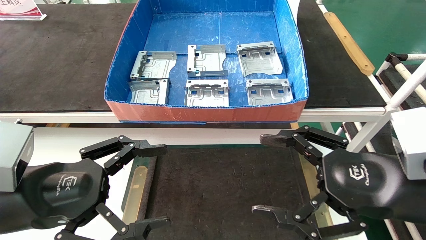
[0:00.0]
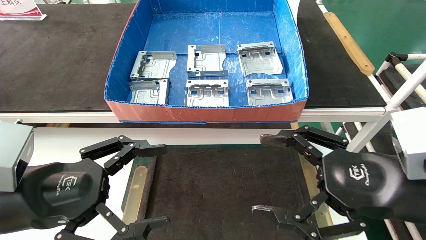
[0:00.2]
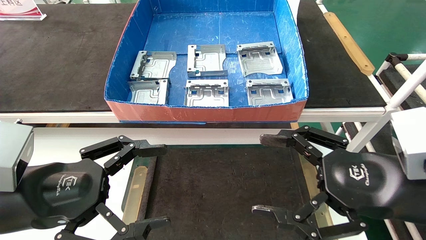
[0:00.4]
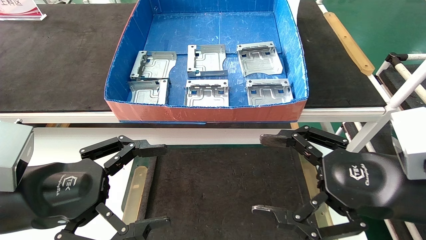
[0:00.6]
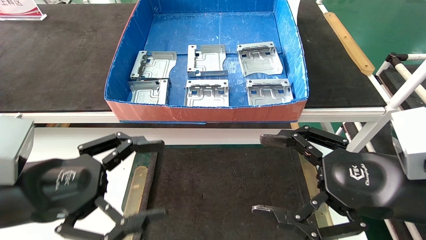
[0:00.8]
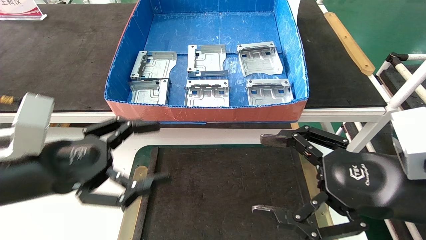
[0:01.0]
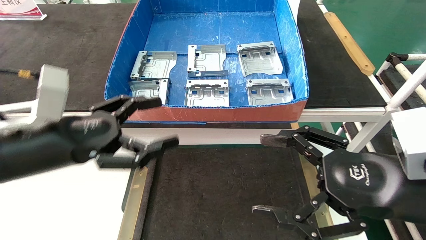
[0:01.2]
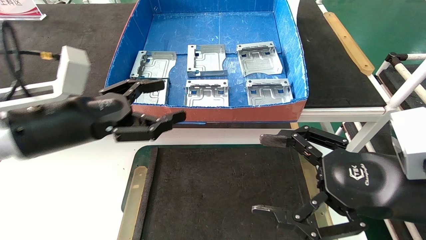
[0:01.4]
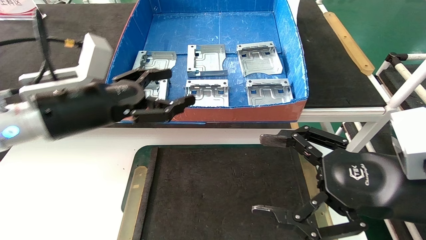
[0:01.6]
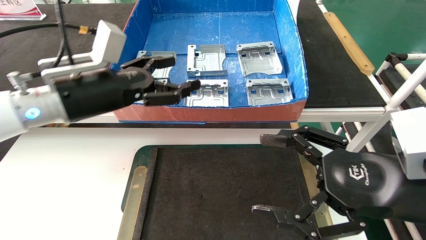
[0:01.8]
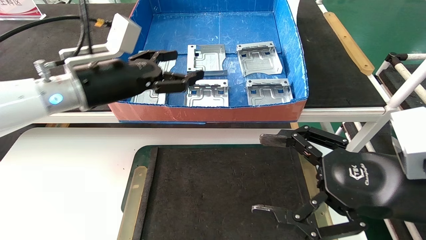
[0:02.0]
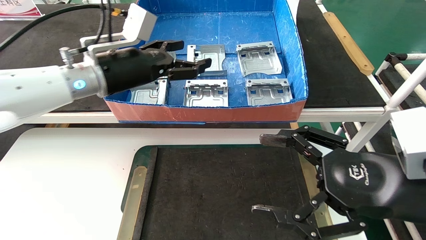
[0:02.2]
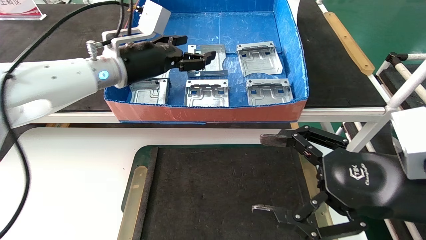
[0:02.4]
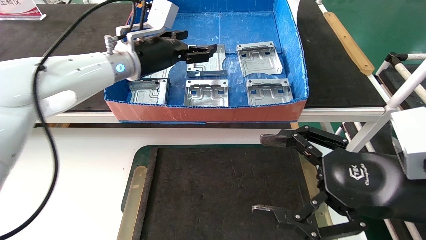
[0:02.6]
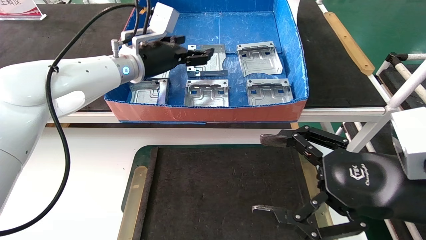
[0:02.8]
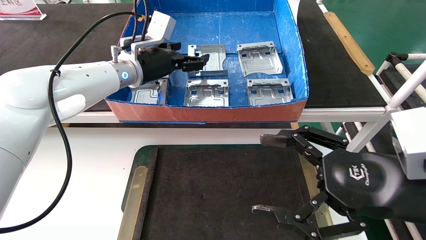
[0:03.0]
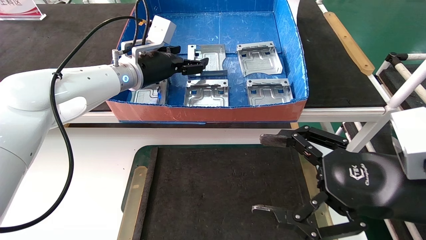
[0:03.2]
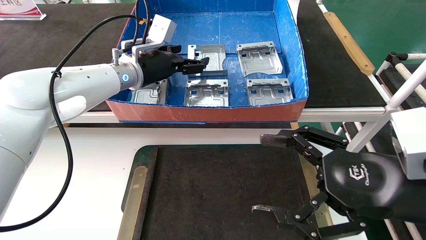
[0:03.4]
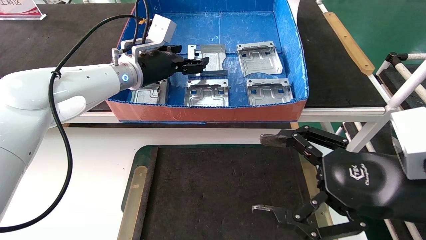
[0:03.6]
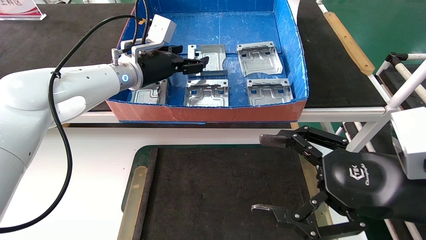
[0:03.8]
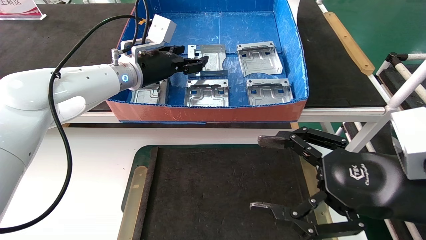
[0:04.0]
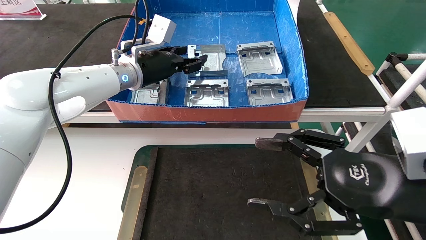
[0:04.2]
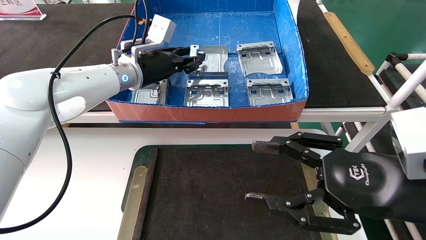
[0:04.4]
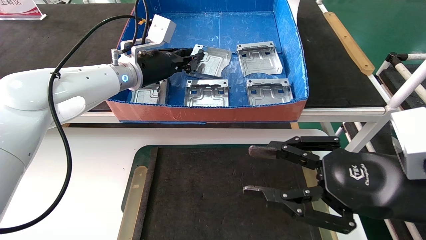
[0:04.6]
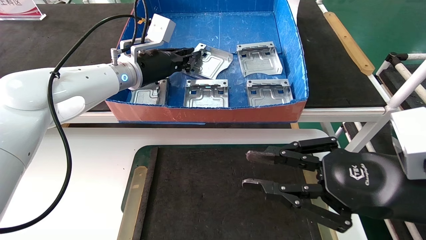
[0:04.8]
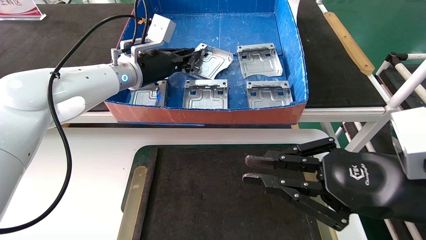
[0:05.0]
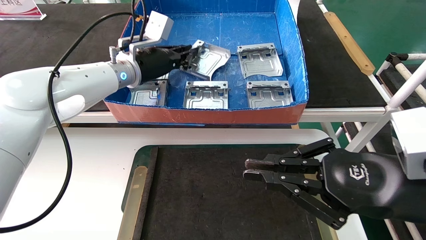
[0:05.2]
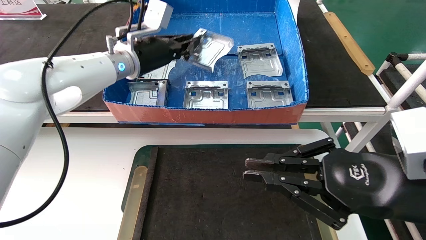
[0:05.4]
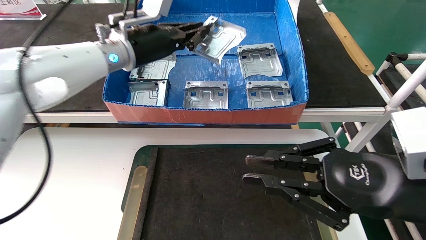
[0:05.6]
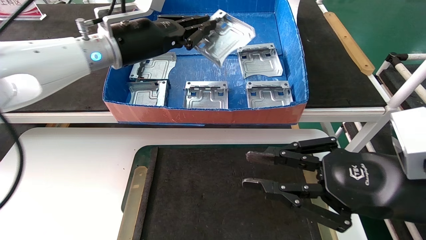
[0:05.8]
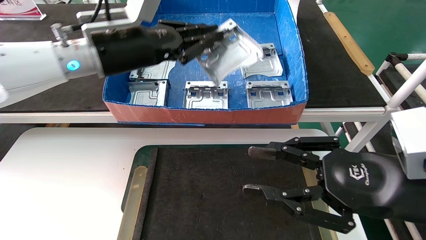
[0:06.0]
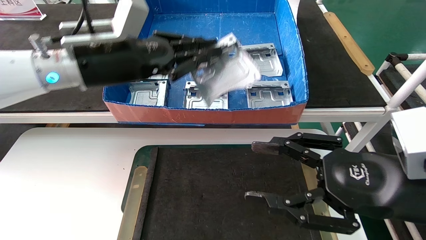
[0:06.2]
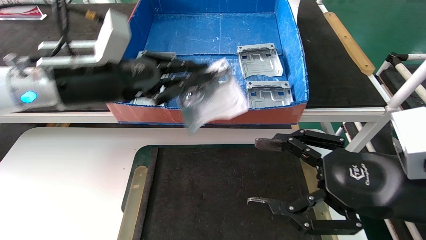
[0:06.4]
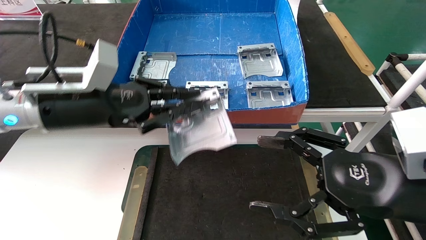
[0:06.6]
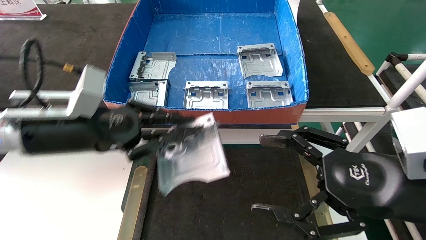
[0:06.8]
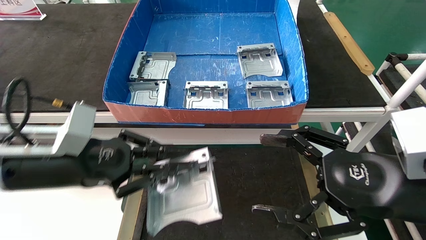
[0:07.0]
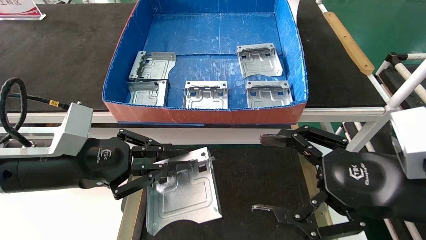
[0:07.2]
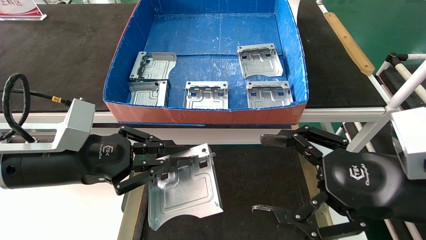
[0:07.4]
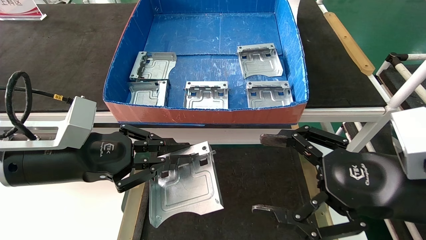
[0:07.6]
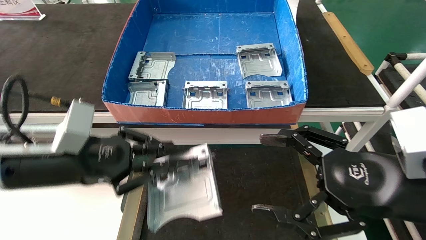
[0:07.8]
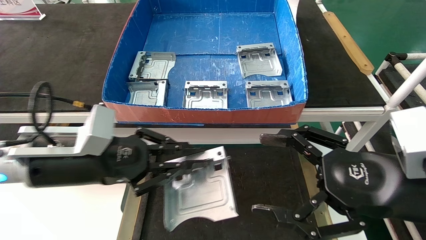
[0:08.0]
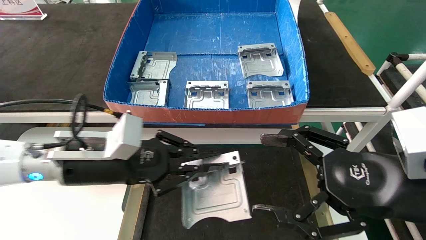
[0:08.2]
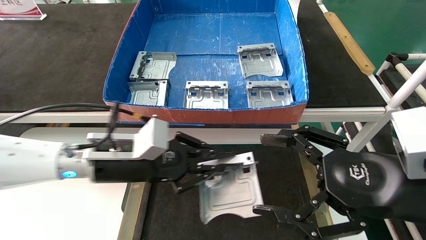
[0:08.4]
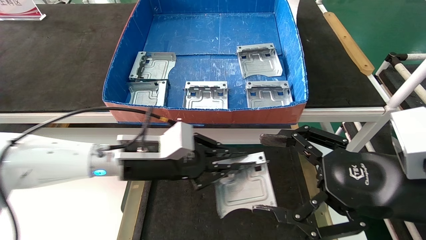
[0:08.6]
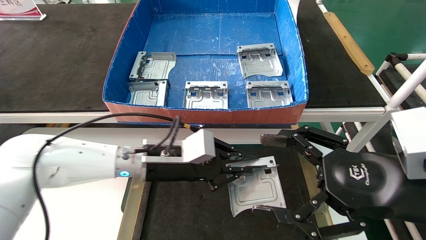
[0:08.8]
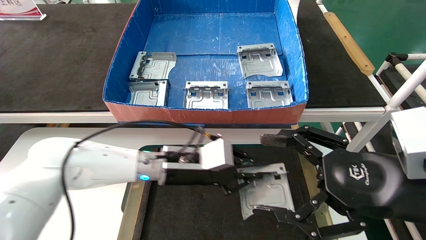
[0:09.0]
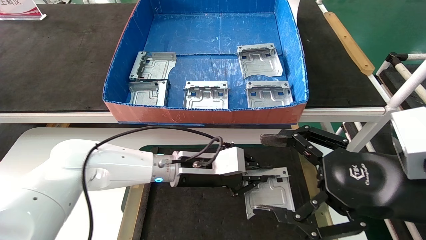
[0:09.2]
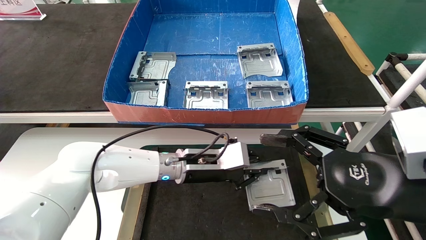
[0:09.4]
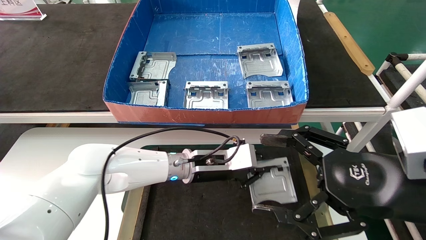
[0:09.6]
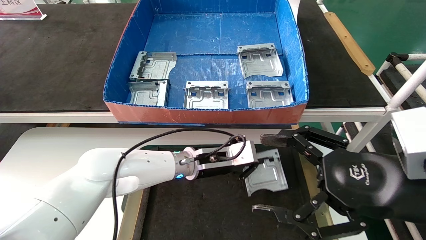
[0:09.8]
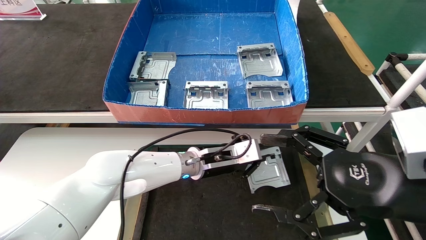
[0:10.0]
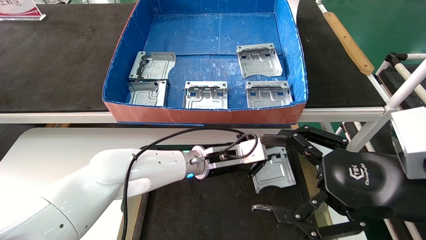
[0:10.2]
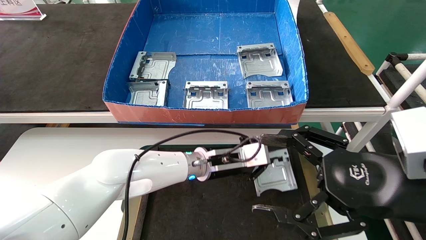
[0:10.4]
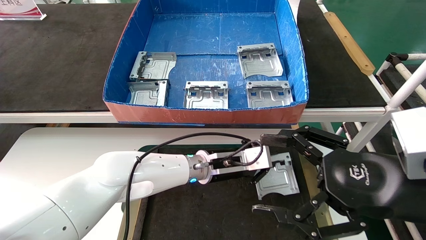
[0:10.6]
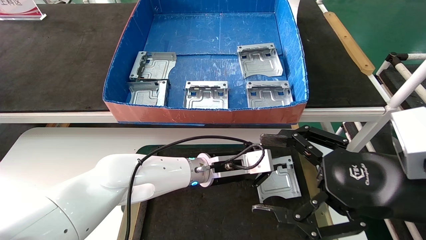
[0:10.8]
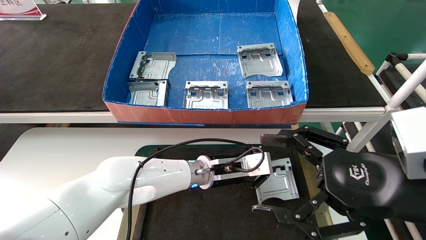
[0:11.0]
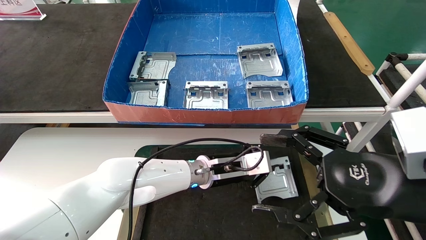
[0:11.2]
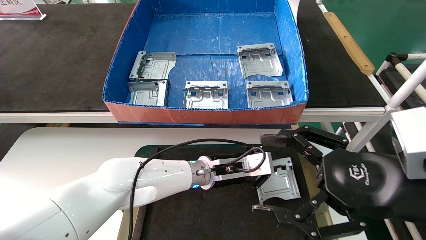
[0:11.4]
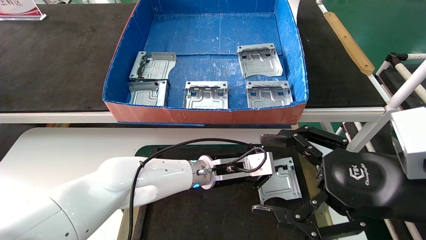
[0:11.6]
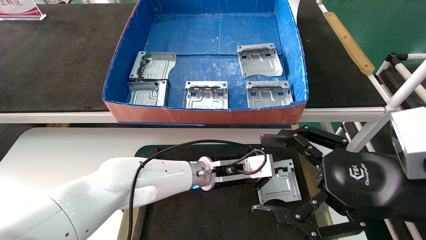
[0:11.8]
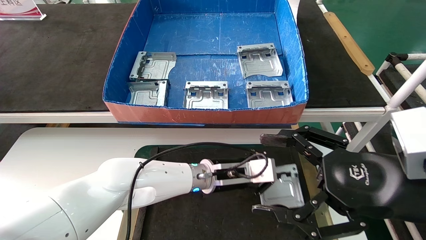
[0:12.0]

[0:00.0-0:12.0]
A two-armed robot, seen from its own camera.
Task of the whole recording: take the accessories out of the box and place them on the table.
Step, 0:01.4 to 0:04.8: Pick up the hard drive bracket from the feeding area.
0:00.0 to 0:01.6: The left gripper goes approximately 15 cm forward and upward.
0:01.6 to 0:03.0: The left gripper goes some 20 cm forward and to the right.
0:03.0 to 0:04.4: The left gripper closes its fingers.
0:04.4 to 0:06.0: The left gripper travels backward by approximately 10 cm, and closes up. The right gripper closes.
0:06.0 to 0:07.6: The left gripper heads downward, backward and to the left, covering some 20 cm; the right gripper opens.
0:07.6 to 0:09.0: The left gripper heads to the right, forward and downward, covering some 20 cm.
0:09.0 to 0:10.4: The left gripper moves to the right, some 10 cm.
0:10.4 to 0:12.0: There are only small adjustments of the grippers.

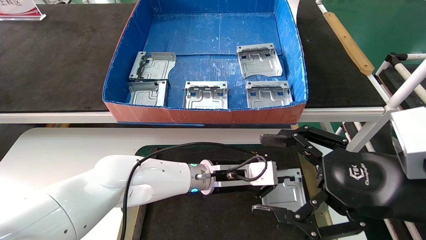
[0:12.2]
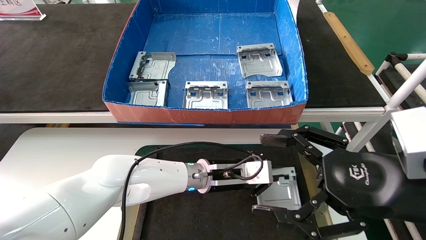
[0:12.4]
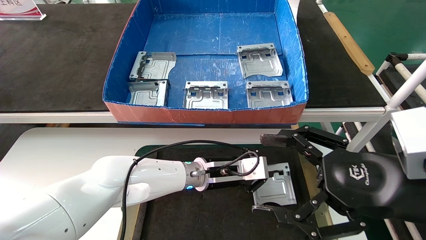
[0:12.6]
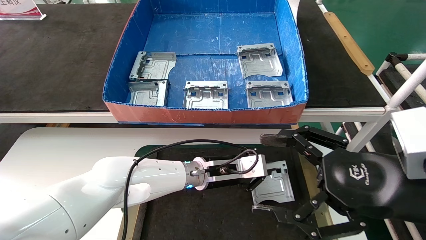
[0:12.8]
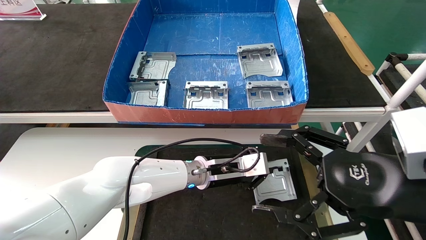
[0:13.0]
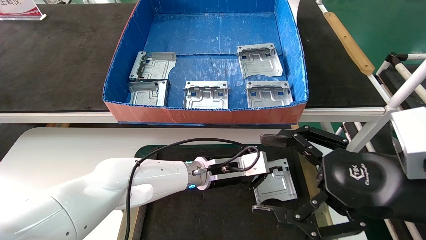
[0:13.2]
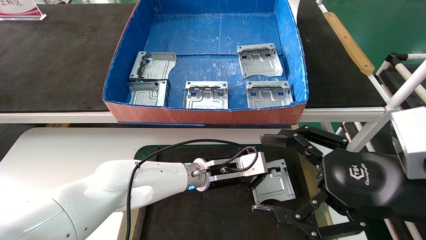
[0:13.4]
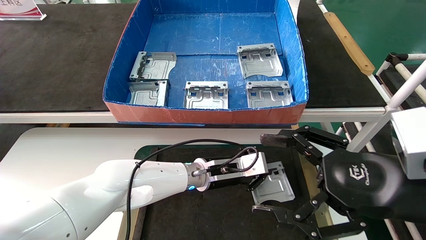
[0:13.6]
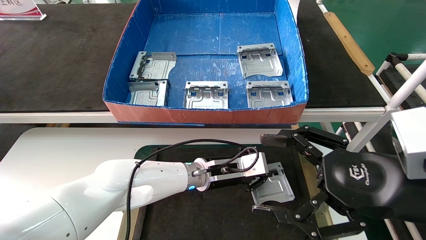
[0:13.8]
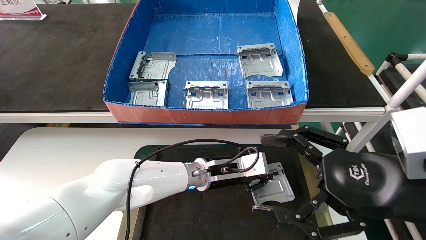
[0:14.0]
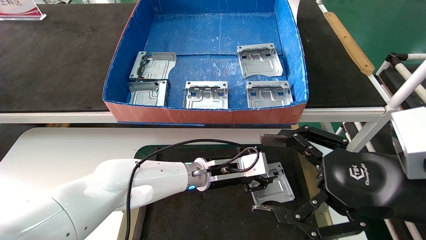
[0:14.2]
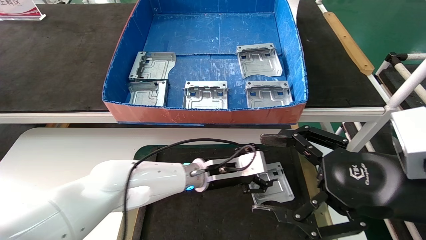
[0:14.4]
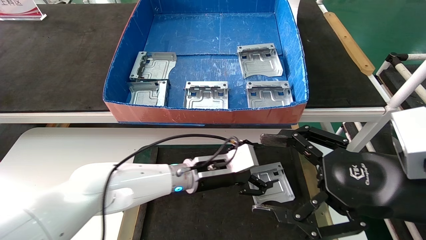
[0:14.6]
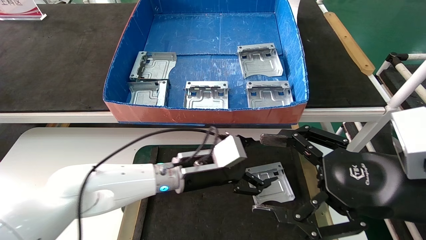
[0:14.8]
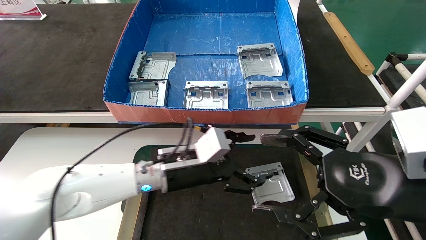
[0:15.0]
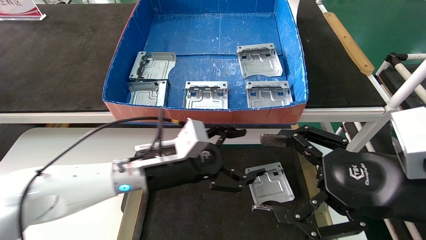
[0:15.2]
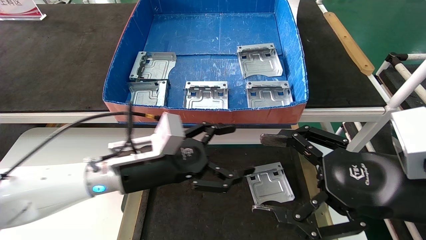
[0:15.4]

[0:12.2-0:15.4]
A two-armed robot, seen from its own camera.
Task of the whole recording: take the accessories out of the box and place them on the table.
Step, 0:12.2 to 0:14.2: Place the hard drive bracket into the box.
0:12.2 to 0:13.8: The grippers move only a little.
0:13.8 to 0:15.4: The left gripper shifts some 15 cm to the left, backward and upward, and opens its fingers.
